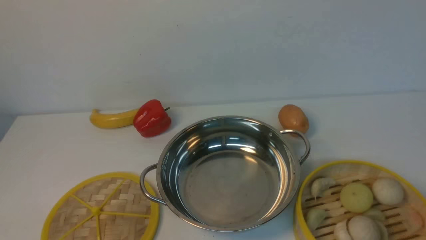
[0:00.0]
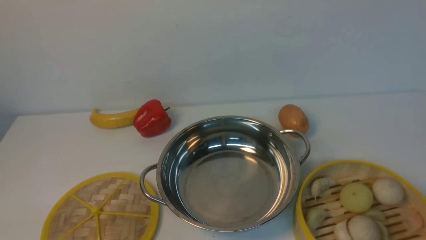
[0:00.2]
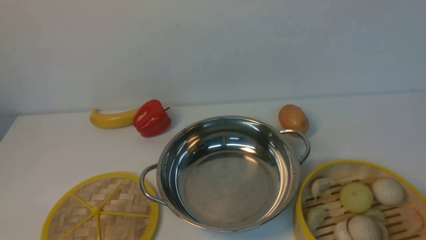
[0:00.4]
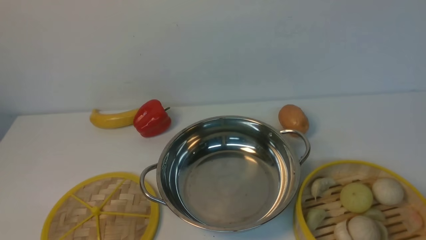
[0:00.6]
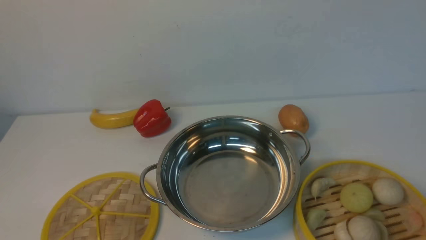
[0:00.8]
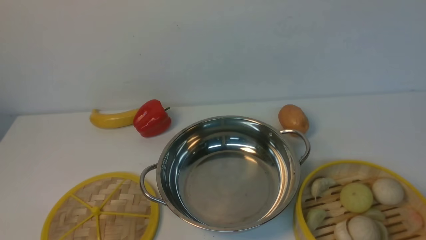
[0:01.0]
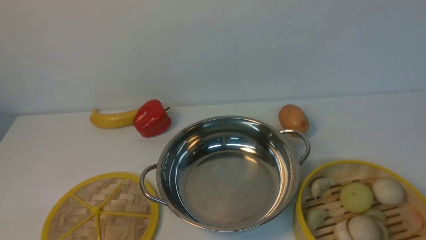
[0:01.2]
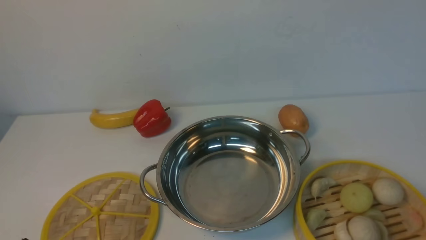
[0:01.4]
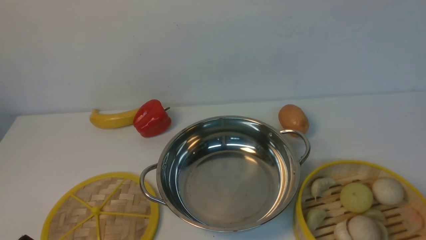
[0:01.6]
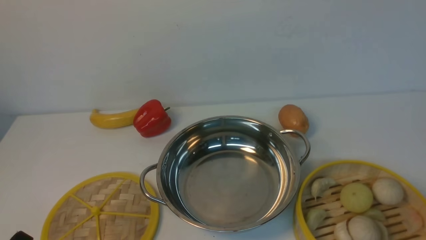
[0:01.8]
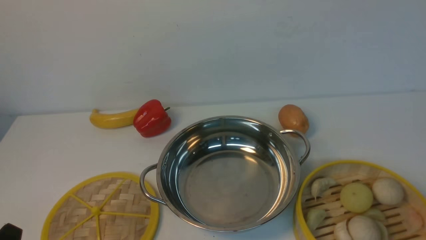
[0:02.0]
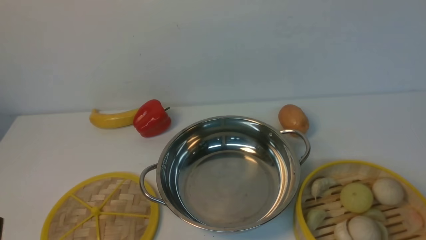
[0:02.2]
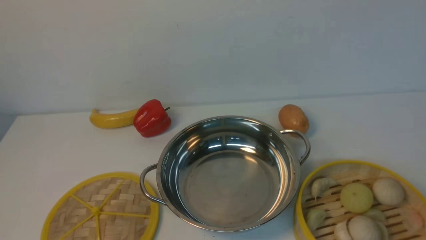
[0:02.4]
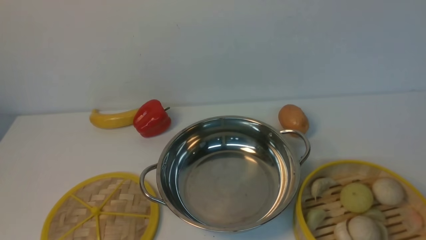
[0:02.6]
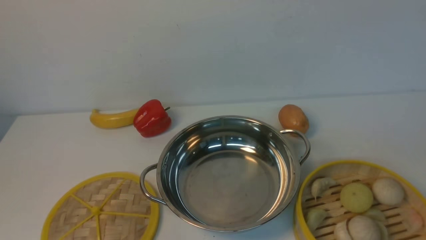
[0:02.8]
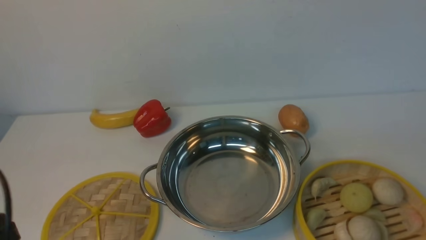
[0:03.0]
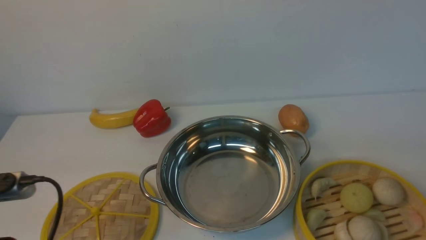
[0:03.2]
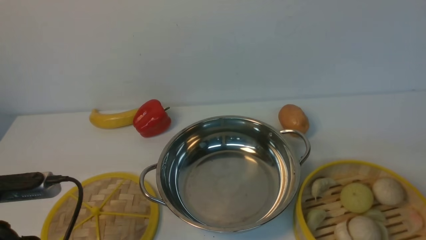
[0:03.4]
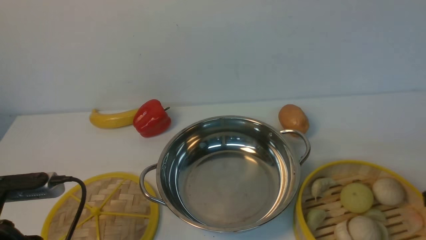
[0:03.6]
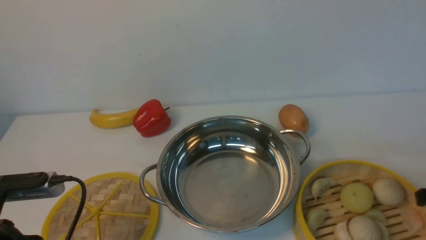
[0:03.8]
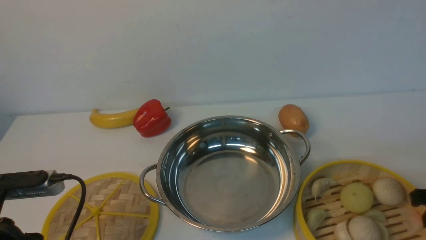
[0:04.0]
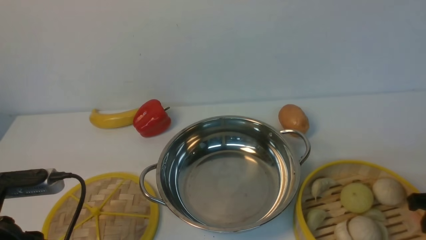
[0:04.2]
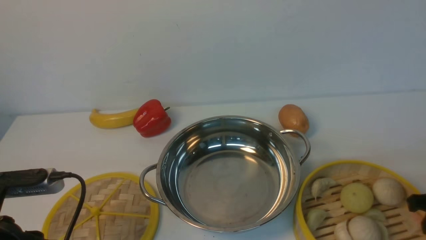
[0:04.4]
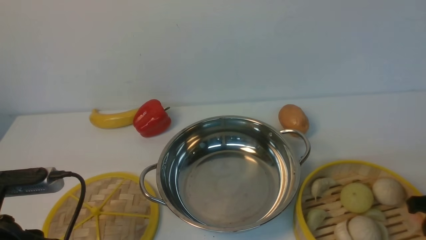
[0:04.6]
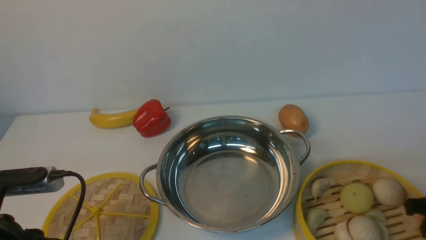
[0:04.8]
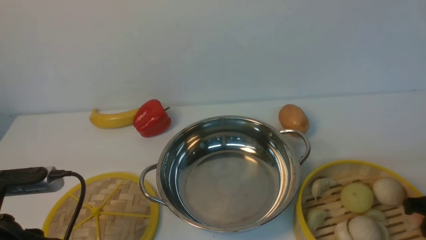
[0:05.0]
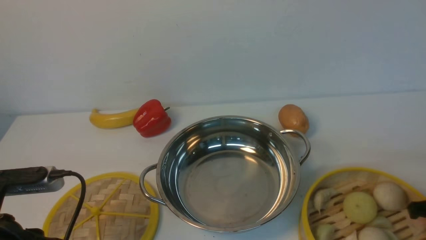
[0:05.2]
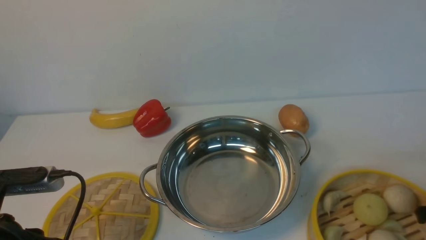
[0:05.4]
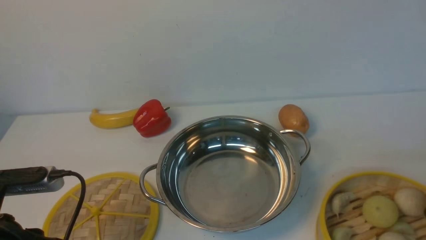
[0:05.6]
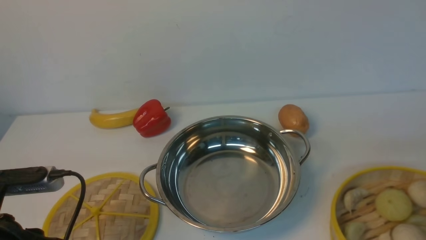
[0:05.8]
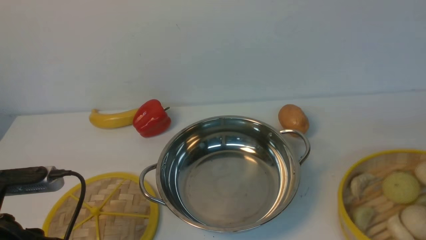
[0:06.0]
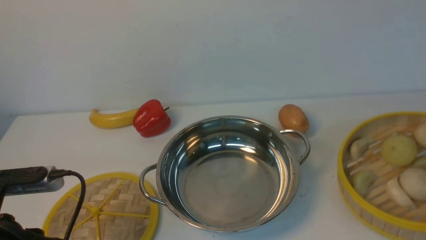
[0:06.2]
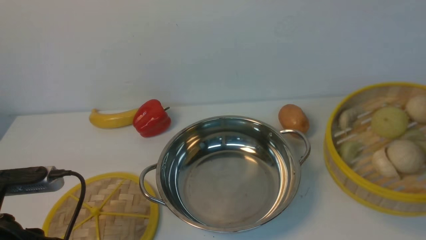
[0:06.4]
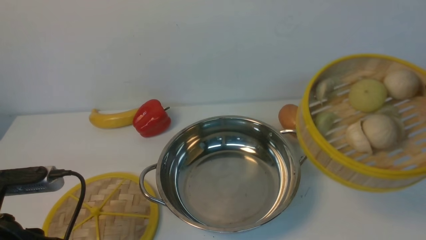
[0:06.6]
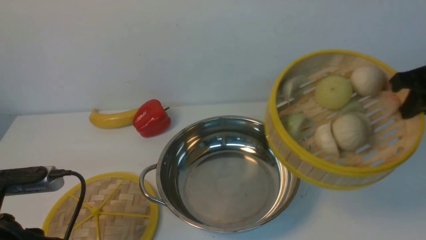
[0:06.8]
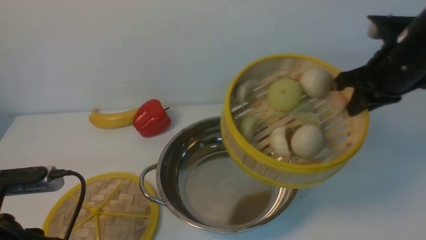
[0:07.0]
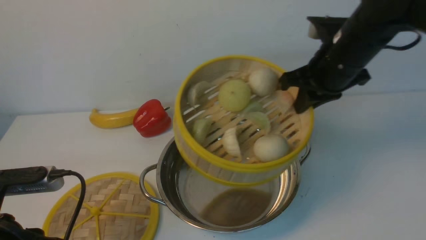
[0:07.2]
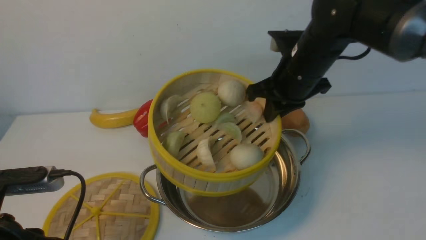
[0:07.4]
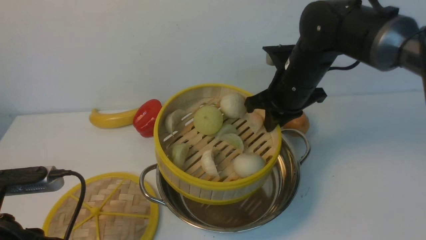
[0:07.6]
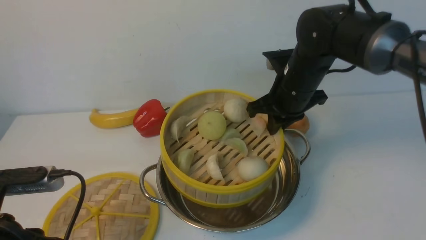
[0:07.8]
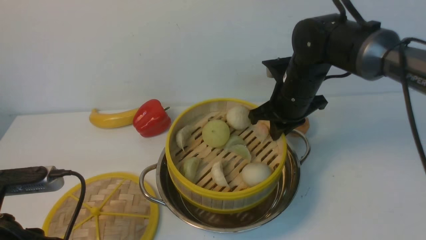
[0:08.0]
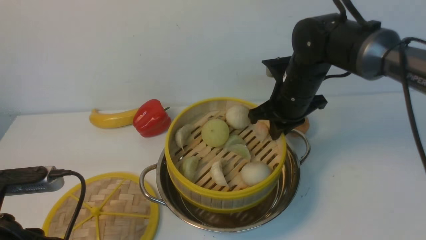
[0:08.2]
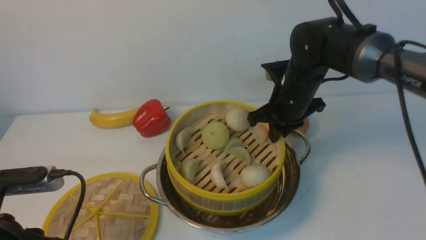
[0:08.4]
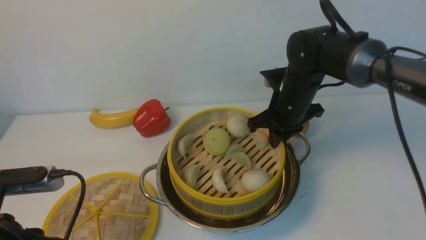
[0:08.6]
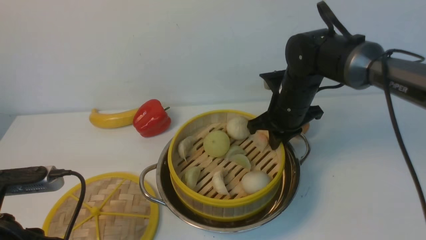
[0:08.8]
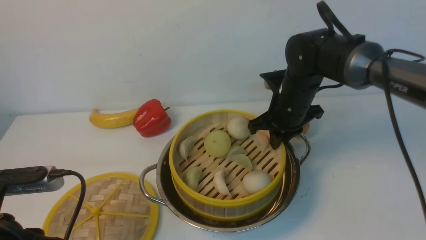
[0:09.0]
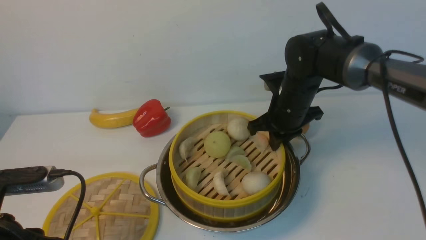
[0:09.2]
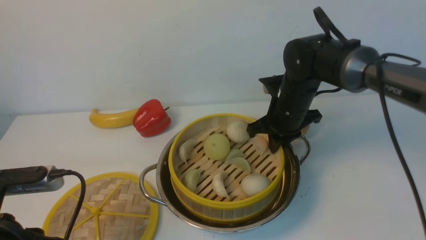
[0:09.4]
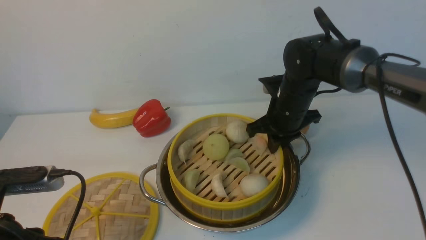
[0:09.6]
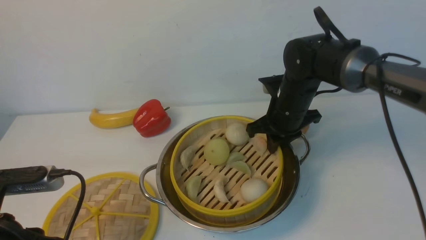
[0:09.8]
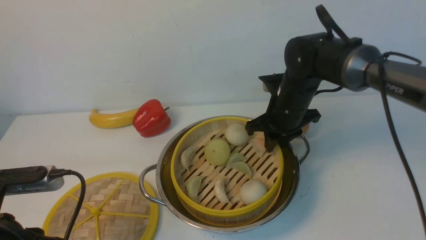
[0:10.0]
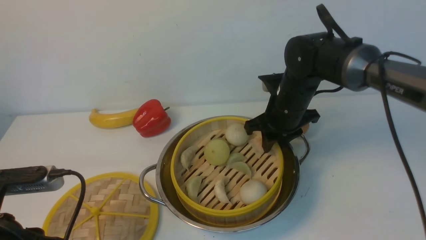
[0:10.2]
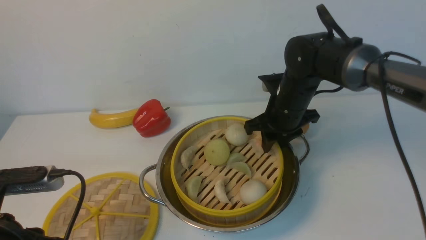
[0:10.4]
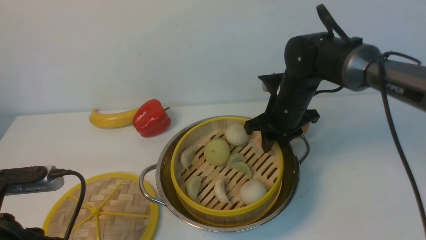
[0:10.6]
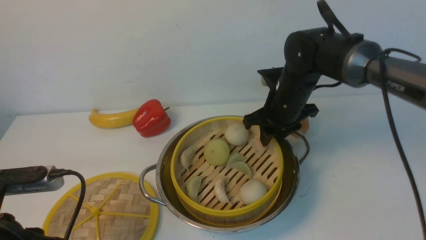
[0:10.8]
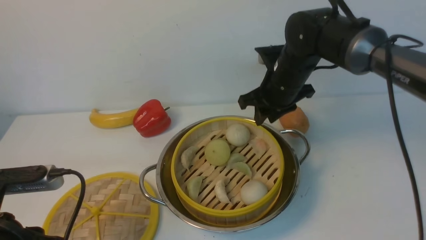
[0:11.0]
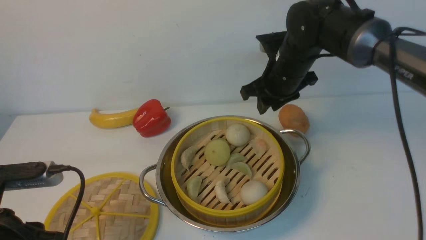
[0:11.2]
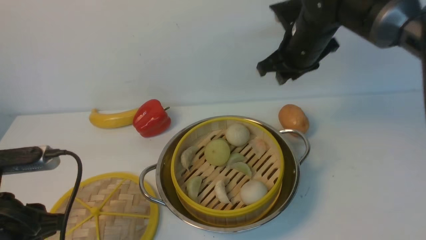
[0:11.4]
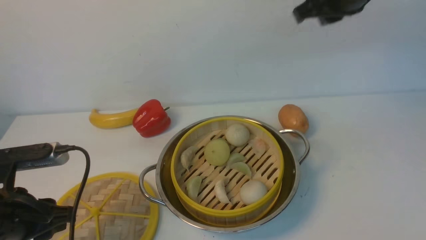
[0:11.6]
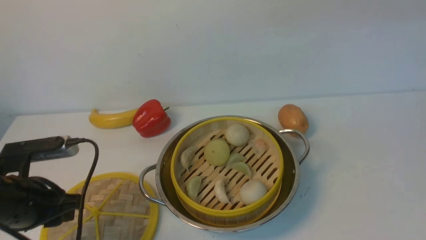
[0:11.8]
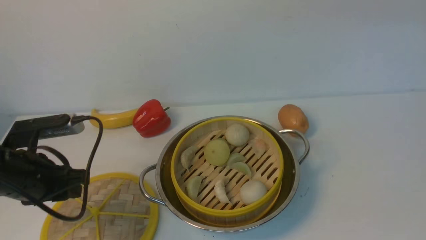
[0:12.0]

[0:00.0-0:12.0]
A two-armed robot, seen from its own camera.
Task of the whole recording: place the steamer in the pot on the white table, and put the lid on the steamer.
Step, 0.0 to 6.4 s: use the right arm to lift the steamer closest to it.
Step, 6.6 to 11.2 s: use the right arm to put the steamer into the iron steamer pot in the middle.
1.6 to 3.0 s: The left gripper goes about 10 cm upward.
3.0 to 4.4 s: The left gripper is displaced forward by roughly 5 cm.
4.4 to 6.0 s: The right gripper travels upward by some 5 cm, and closes.
6.0 to 7.6 s: The right gripper goes about 30 cm to the left and forward.
7.6 to 9.0 s: The right gripper heads downward, covering about 5 cm.
9.0 to 10.4 s: The right gripper opens its fingers.
10.4 to 12.0 s: The right gripper travels upward, backward and to the right by about 40 cm, and closes up. The left gripper goes about 10 cm forward.

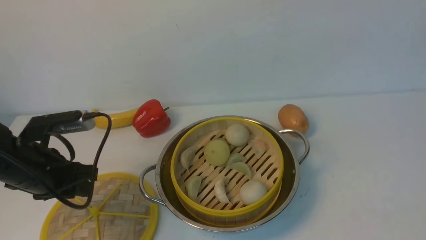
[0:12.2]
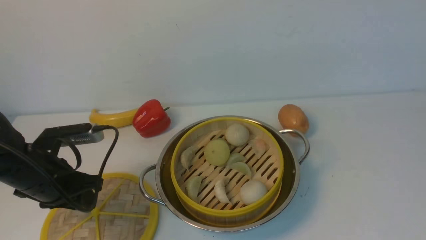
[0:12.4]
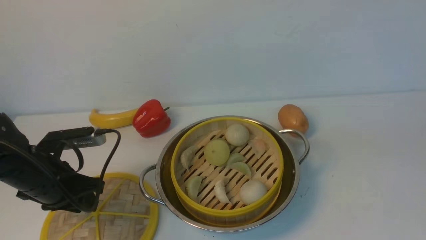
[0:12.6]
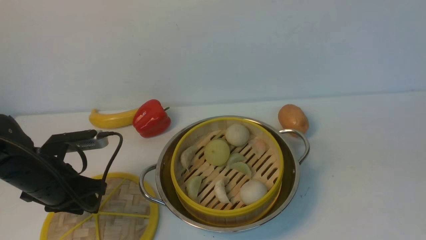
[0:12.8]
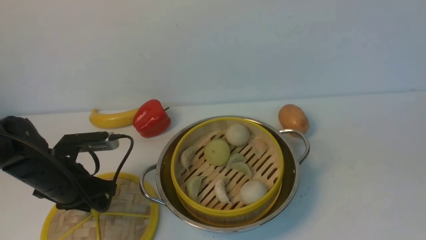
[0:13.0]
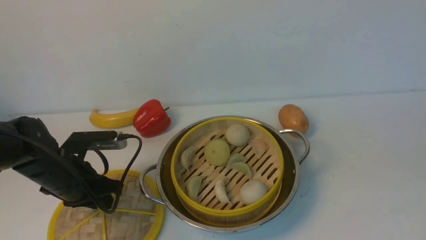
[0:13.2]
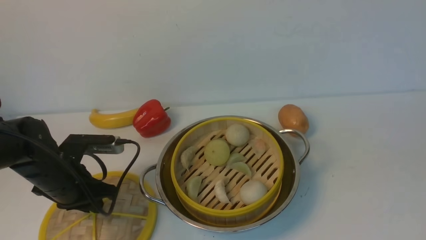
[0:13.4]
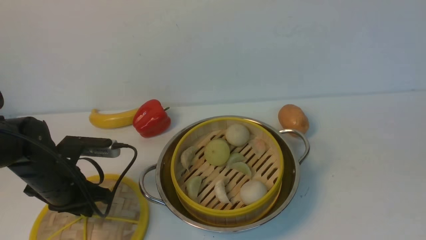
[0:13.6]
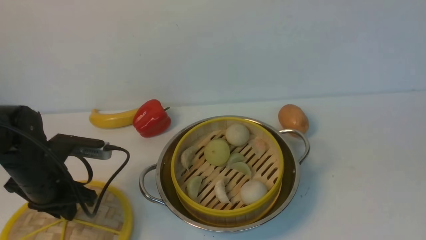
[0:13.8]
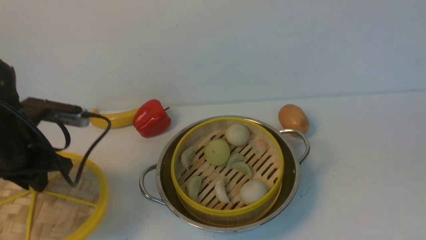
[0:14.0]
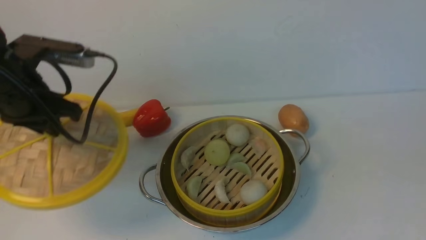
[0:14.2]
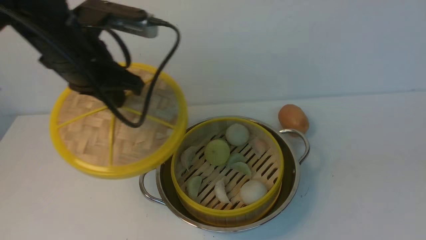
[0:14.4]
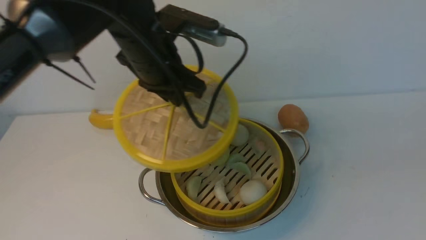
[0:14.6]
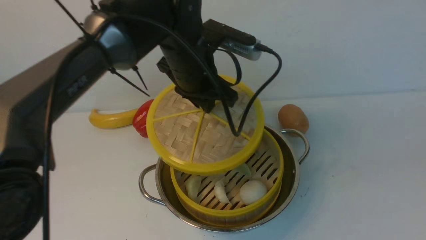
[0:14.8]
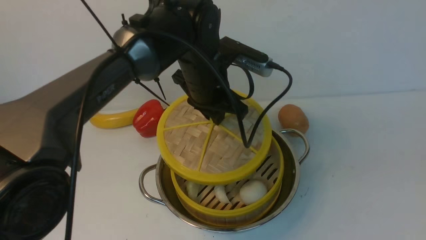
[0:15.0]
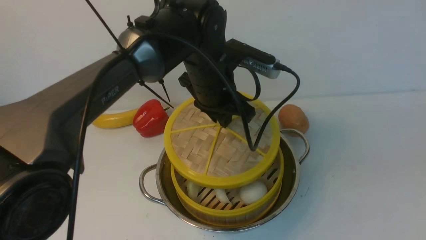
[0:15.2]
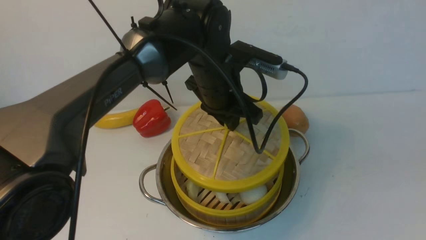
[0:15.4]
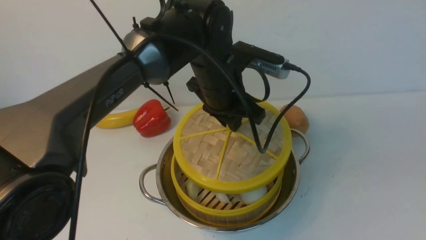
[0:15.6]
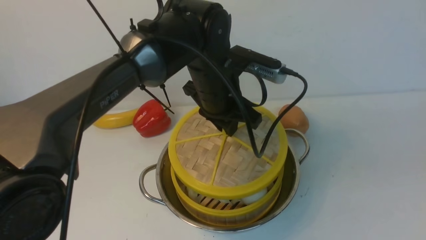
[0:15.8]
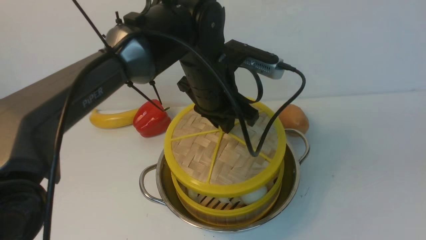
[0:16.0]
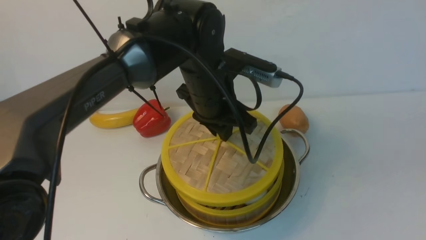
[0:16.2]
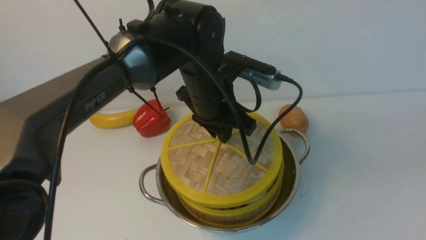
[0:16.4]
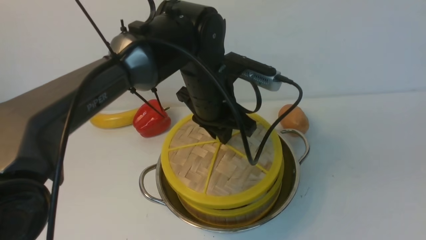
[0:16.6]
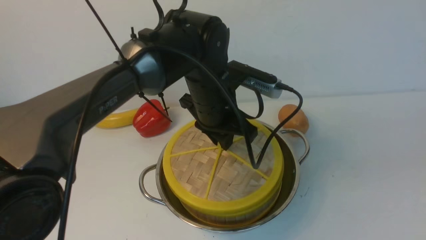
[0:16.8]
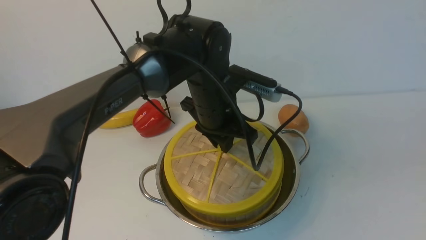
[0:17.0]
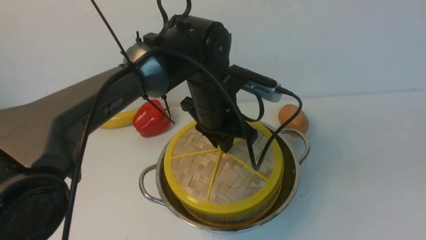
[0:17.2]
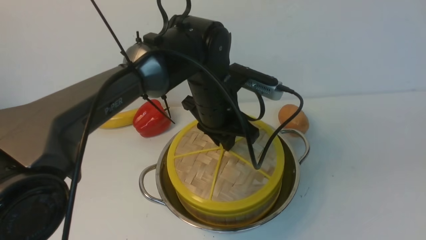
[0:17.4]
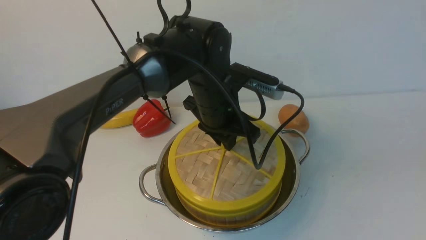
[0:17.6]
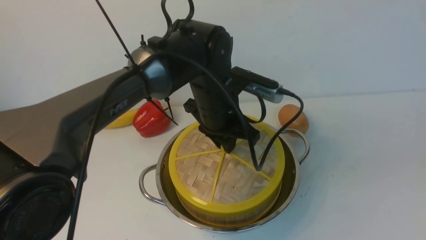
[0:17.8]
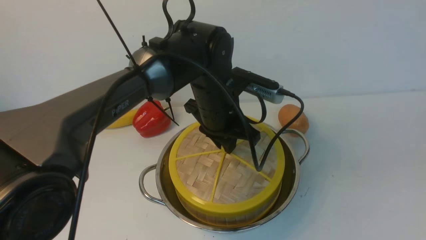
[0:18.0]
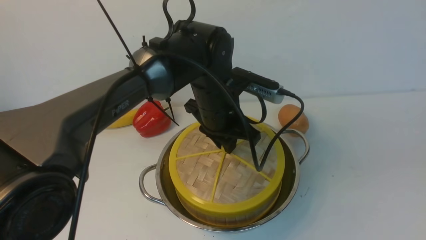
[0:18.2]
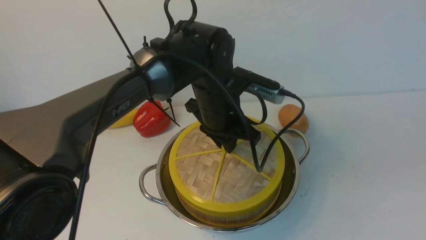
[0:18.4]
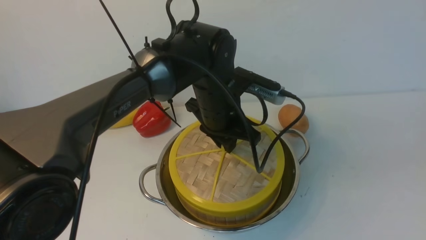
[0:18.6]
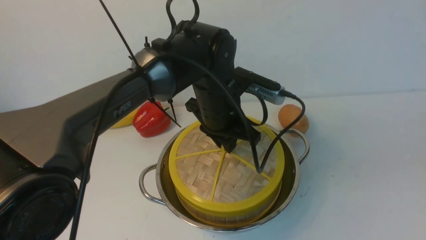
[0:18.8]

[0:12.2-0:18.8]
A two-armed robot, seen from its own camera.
Task of the whole recording: place the steamer in the pot on the white table, and put the lid on the steamer.
Step, 12.2 to 14.2 s: use the left arm to lift the lid of the steamer.
12.2 to 13.8 s: The right gripper heads backward and downward, covering about 20 cm. Meanwhile the left gripper closes.
13.8 to 15.4 s: The left gripper heads to the right, covering roughly 25 cm.
15.4 to 17.2 s: There are only small adjustments of the grippers.
17.2 to 18.8 s: Neither gripper changes place.
